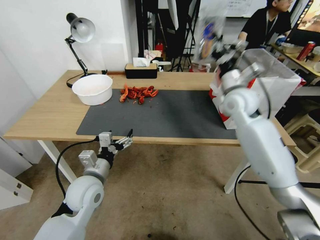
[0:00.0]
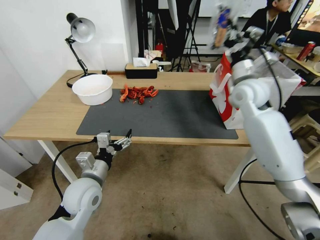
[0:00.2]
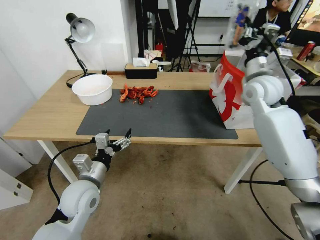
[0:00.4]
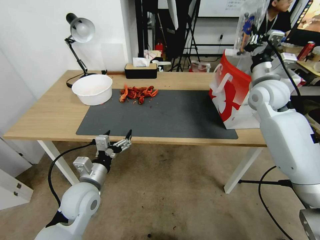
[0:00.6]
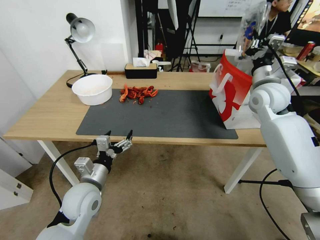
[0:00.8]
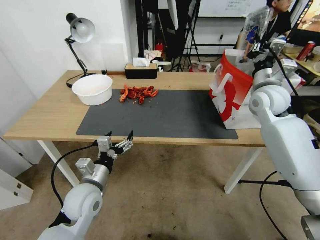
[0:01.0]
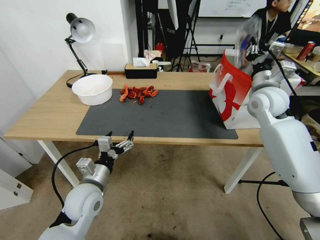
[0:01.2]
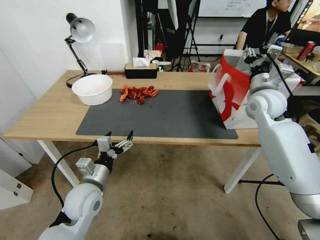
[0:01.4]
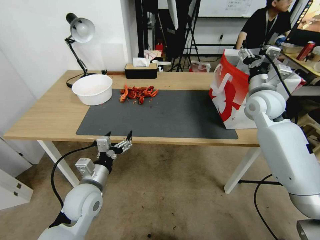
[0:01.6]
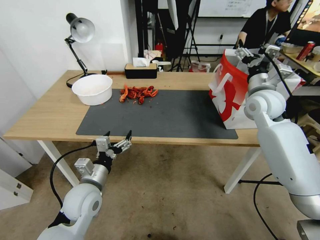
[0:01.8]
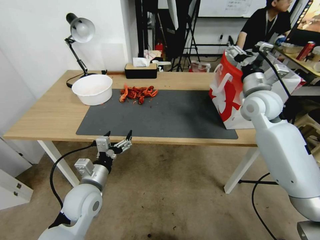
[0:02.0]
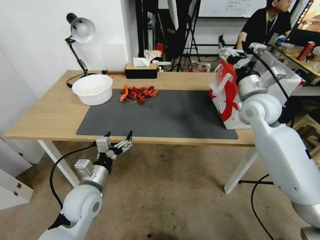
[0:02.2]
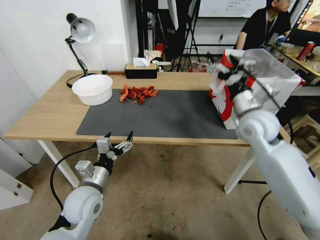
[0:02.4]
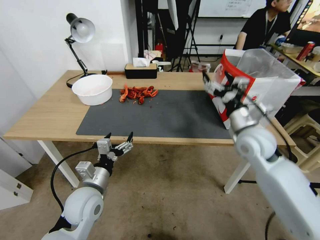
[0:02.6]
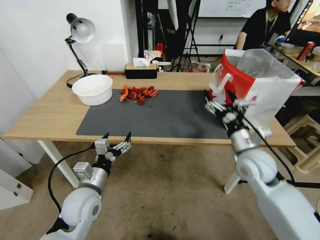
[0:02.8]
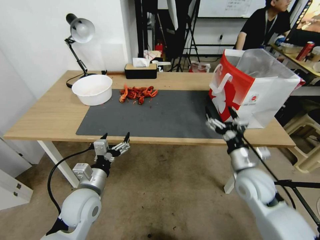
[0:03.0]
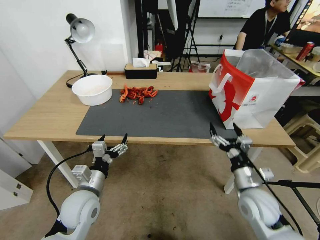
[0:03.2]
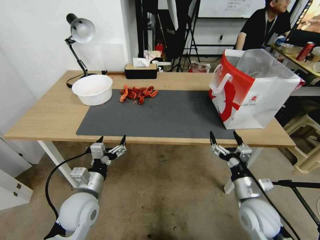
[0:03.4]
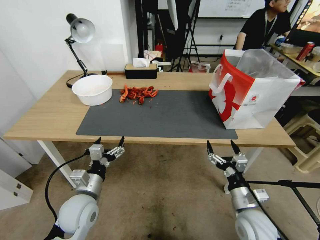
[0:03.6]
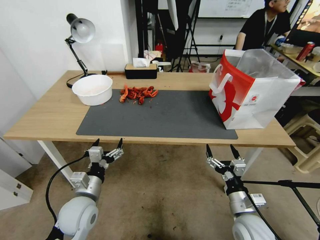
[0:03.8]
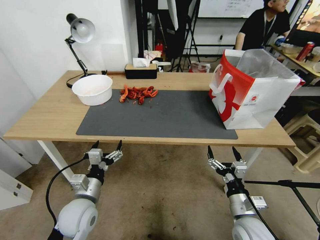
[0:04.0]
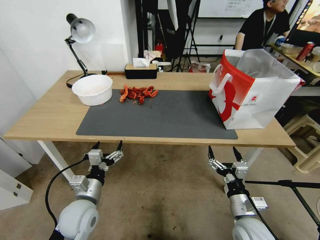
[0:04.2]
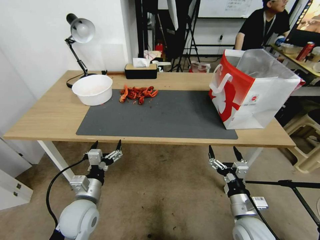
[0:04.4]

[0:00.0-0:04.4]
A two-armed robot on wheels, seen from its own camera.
Task of the whole recording: Close the takeout container lid, then place the container into the takeout bag.
0:00.0 to 0:01.4: The right gripper is displaced to the right by about 10 cm, and opens up.
0:01.4 to 0:03.0: The right gripper heads backward and downward, covering approximately 25 cm, and opens its fingers.
0:03.0 to 0:04.4: The right gripper travels backward and downward by roughly 15 cm.
